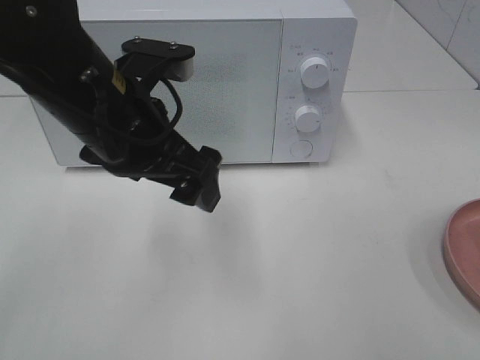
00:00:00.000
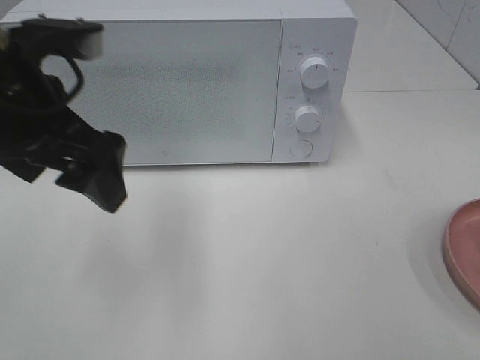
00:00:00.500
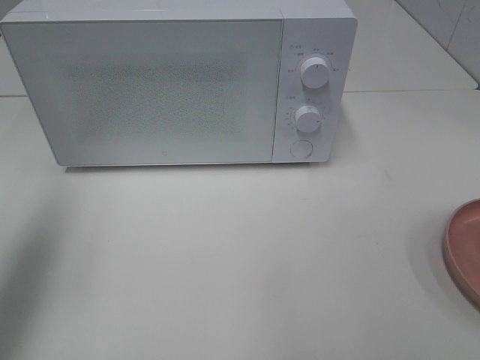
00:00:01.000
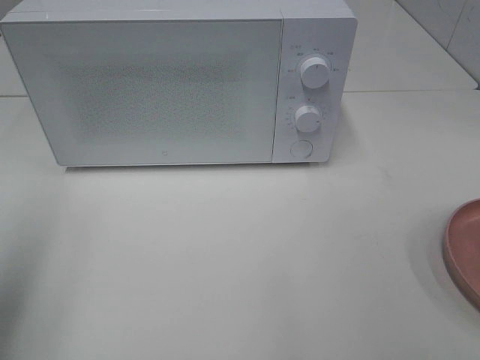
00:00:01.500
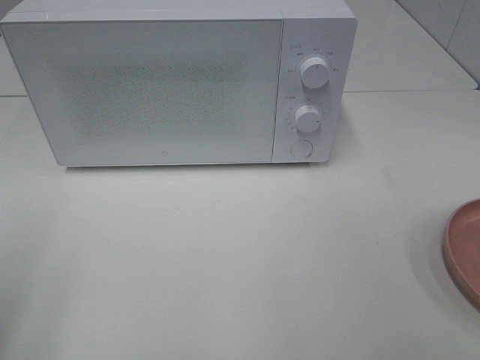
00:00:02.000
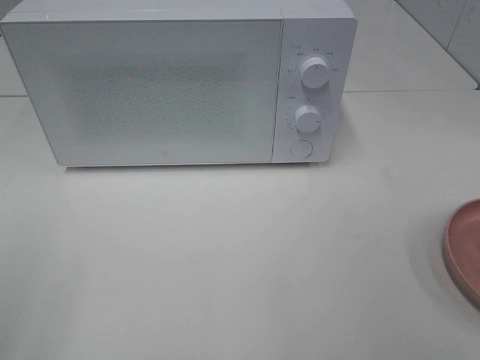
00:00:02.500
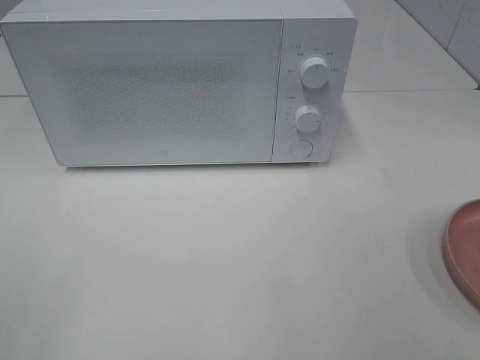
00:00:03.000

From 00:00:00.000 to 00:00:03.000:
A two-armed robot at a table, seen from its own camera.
Task of the whole recording: Heat the burger.
From 00:00:00.000 to 00:00:01.500: The left gripper is displaced to the left and backward by about 25 cm.
From 00:00:01.500 to 00:00:03.000: The left gripper heads backward, covering roughly 15 cm.
